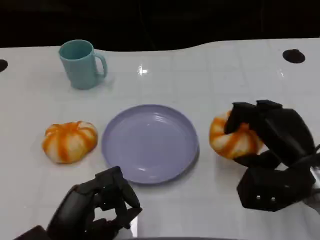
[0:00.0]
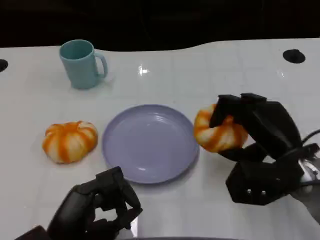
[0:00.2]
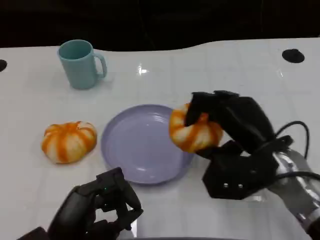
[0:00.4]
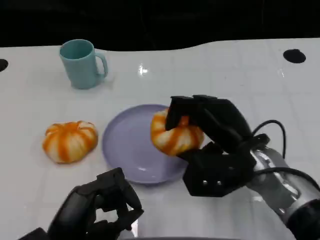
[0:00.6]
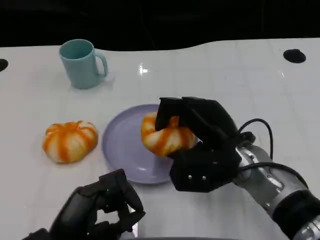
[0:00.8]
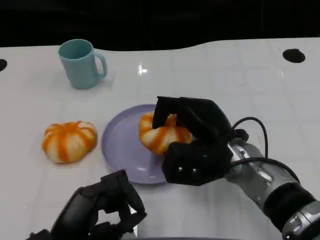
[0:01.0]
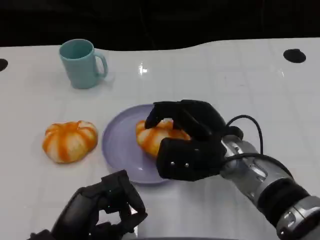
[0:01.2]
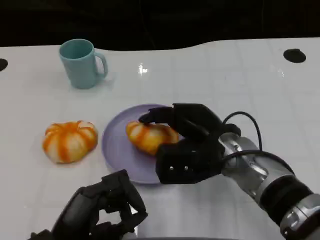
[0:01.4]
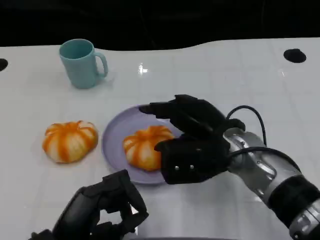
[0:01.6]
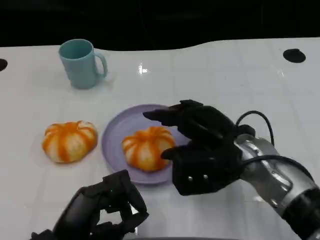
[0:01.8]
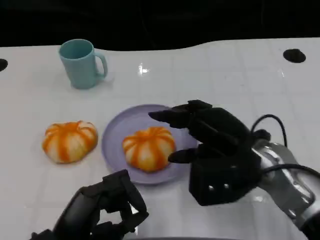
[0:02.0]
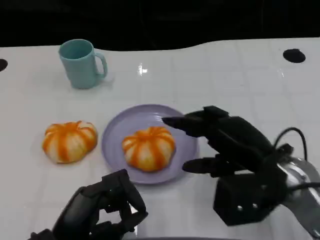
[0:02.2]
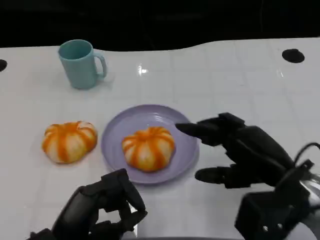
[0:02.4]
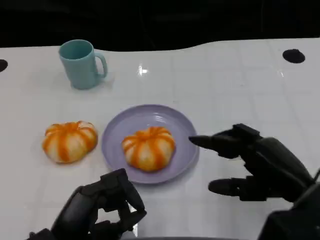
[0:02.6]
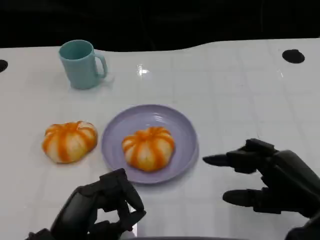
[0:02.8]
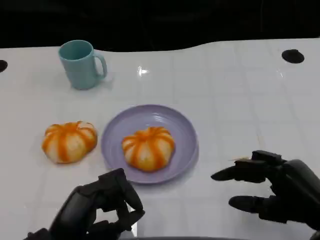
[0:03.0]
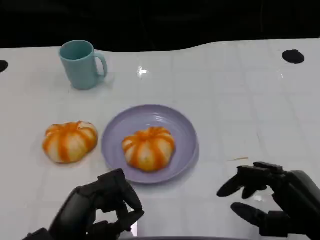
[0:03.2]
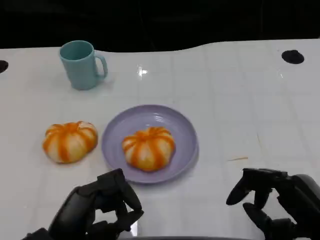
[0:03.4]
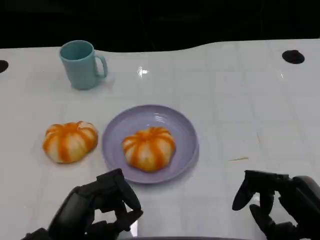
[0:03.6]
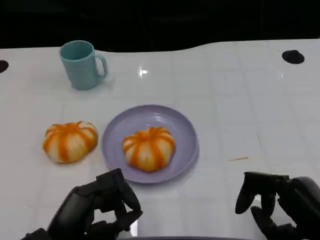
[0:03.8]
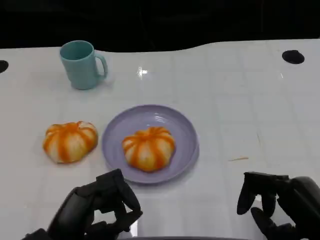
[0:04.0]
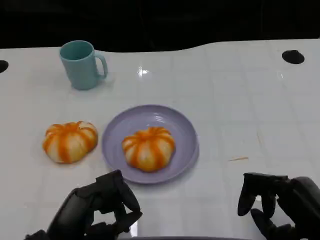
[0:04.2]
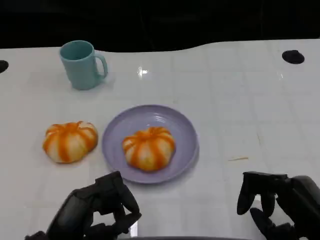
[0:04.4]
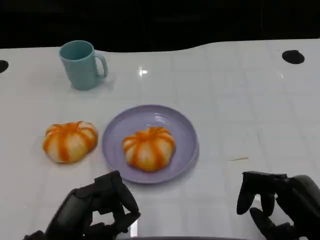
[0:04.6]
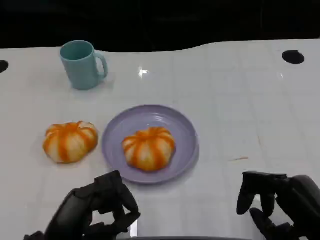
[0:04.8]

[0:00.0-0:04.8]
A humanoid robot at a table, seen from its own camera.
Task of the whole recording: Grasp the bread from the table and place it into the plate.
0:00.0 to 0:01.6: The right hand heads to the left, covering some 10 cm.
0:01.6 to 0:03.2: The right hand shifts about 20 cm backward and to the right.
0:03.2 to 0:04.8: The hands make only small movements.

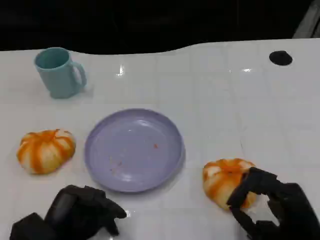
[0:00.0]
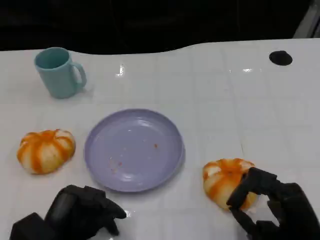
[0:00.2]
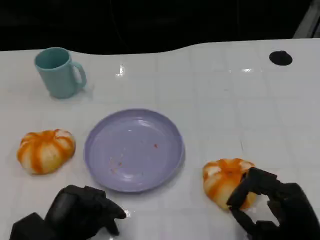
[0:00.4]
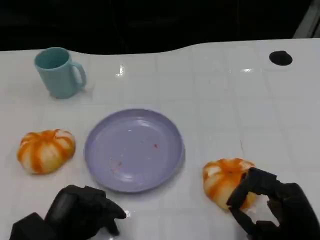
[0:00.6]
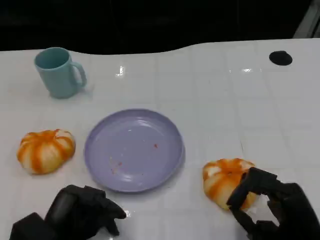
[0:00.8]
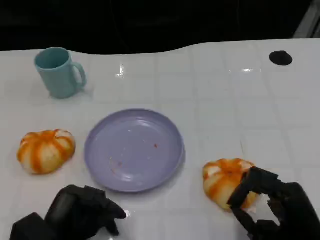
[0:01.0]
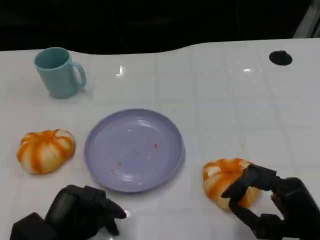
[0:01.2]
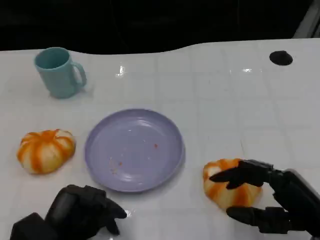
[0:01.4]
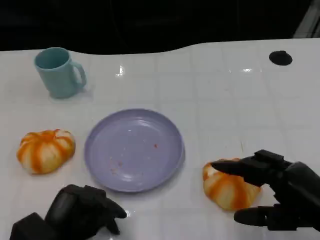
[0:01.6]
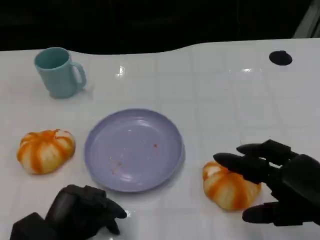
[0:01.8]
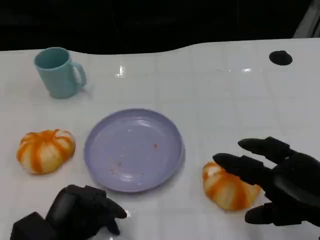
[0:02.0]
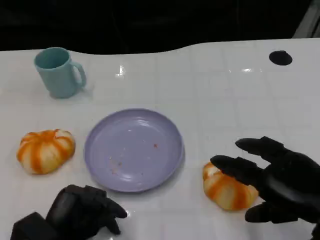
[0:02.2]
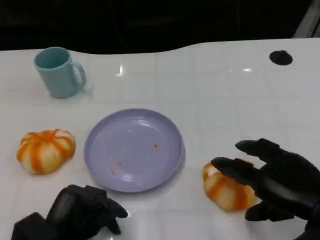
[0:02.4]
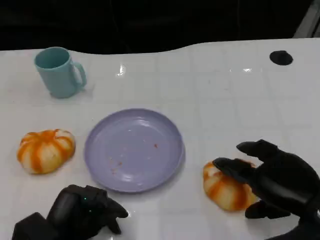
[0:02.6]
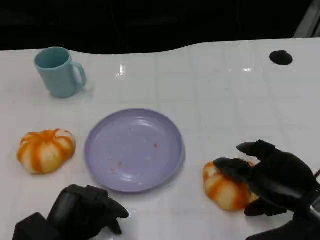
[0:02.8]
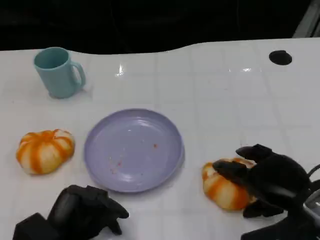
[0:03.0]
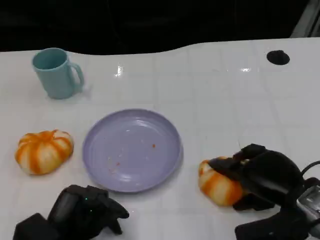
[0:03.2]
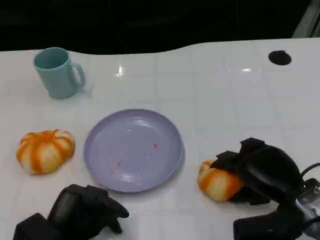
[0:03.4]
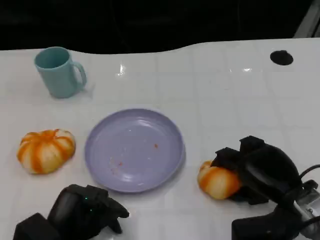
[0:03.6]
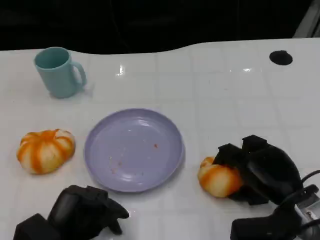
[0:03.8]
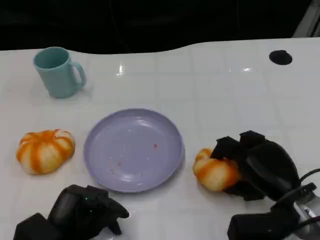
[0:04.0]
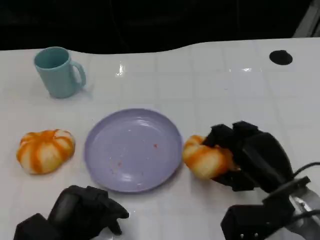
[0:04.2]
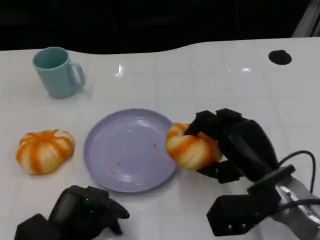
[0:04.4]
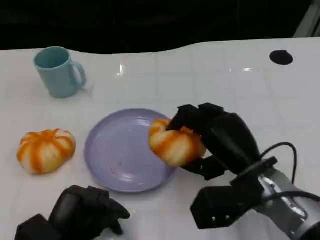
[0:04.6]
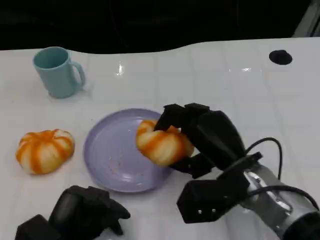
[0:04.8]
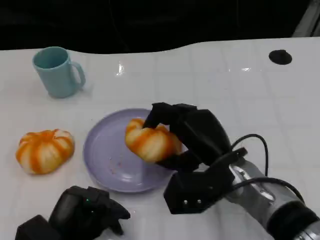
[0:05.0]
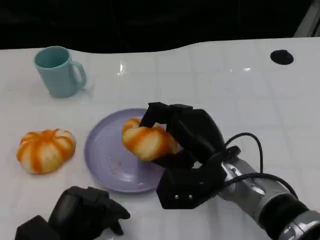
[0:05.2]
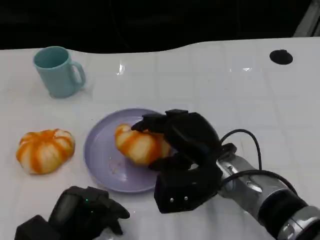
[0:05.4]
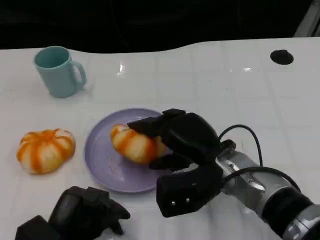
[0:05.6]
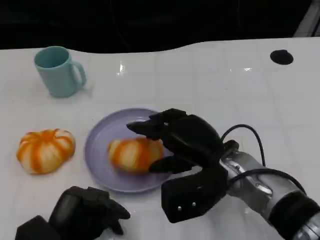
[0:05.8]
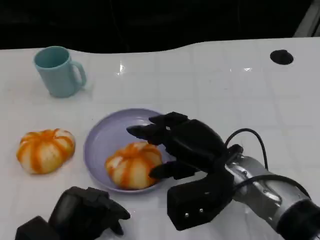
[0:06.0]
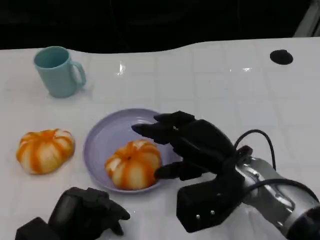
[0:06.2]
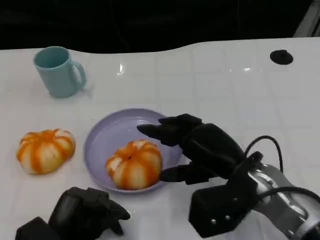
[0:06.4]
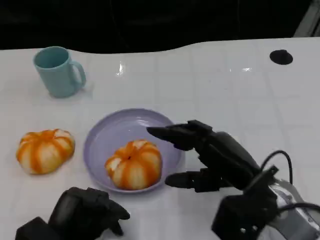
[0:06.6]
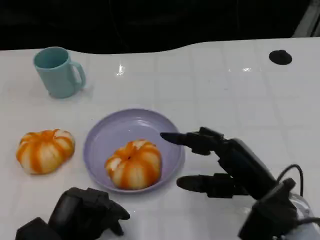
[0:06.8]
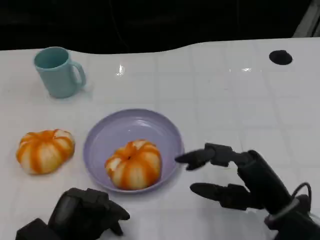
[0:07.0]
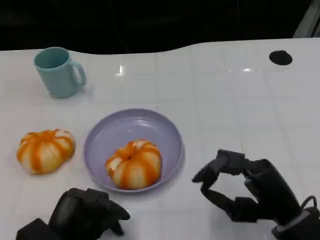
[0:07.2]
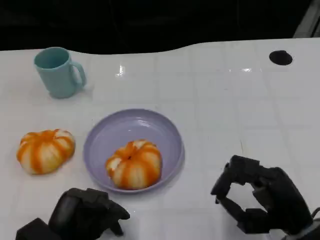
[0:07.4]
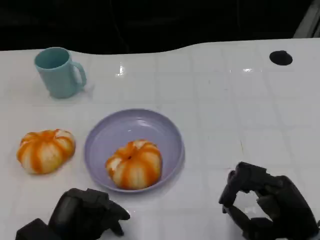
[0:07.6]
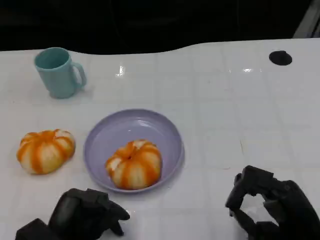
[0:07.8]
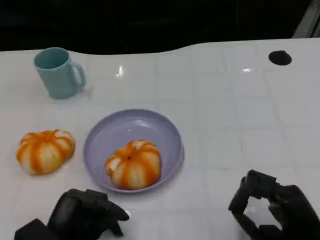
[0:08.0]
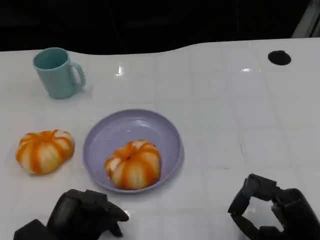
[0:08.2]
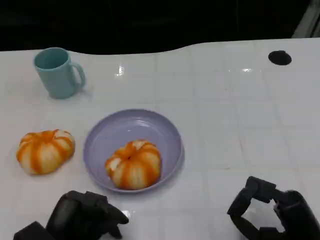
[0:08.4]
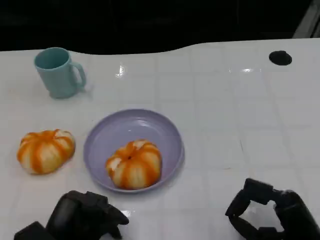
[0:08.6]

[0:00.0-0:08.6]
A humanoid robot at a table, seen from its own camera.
Task of the whole recording: Grasp the bread from the table and place it into the plate.
0:00.0 to 0:01.4: The right hand changes place by about 5 cm.
0:02.8 to 0:04.4: The right hand heads to the left, covering about 5 cm.
0:04.4 to 0:05.8: The right hand goes some 5 cm to the left.
0:05.8 to 0:07.2: The right hand moves to the right and backward, approximately 15 cm.
0:07.2 to 0:08.6: The right hand changes place by roughly 5 cm.

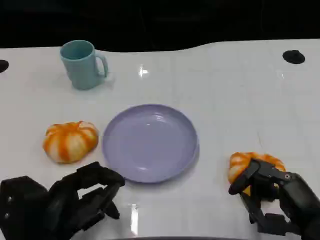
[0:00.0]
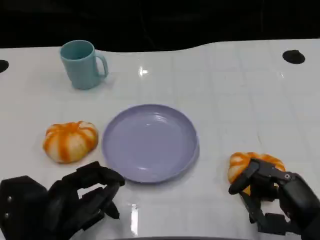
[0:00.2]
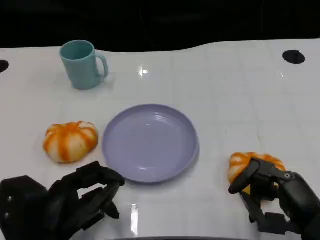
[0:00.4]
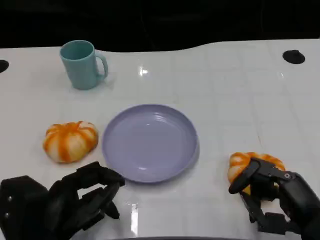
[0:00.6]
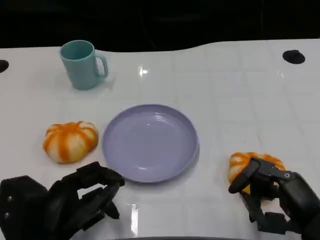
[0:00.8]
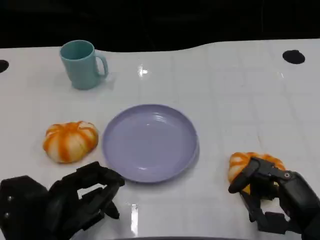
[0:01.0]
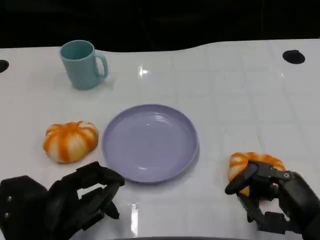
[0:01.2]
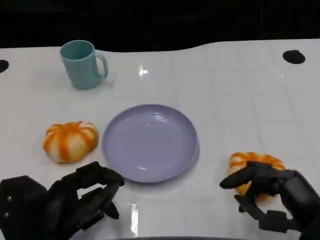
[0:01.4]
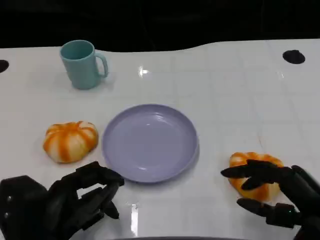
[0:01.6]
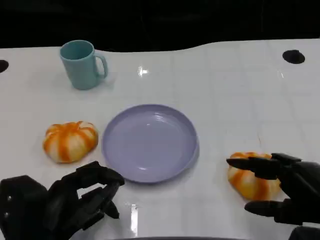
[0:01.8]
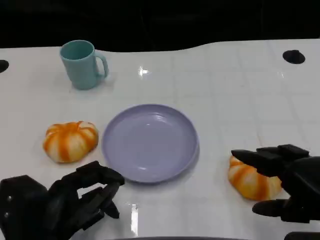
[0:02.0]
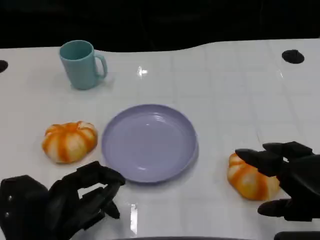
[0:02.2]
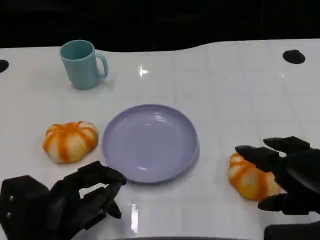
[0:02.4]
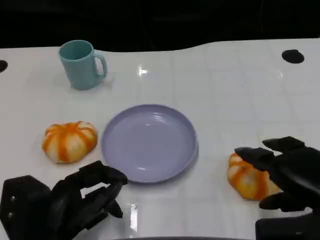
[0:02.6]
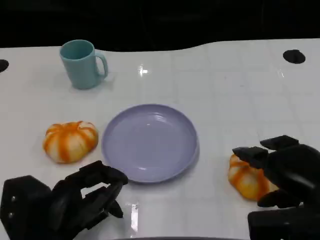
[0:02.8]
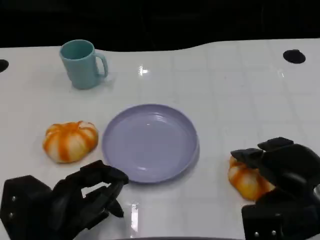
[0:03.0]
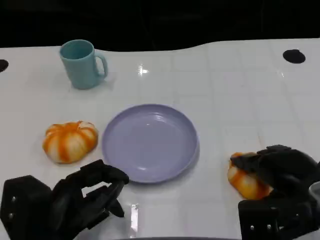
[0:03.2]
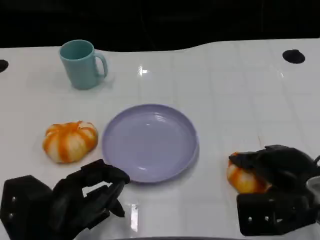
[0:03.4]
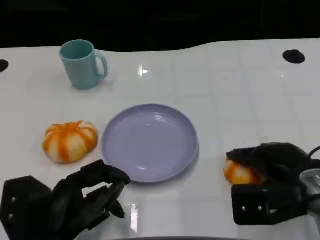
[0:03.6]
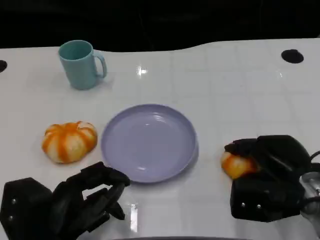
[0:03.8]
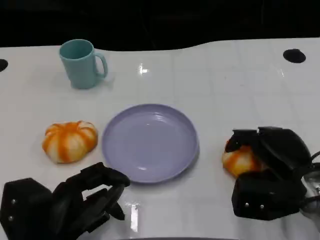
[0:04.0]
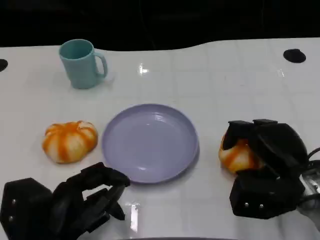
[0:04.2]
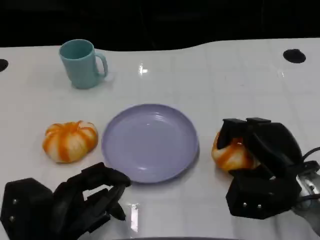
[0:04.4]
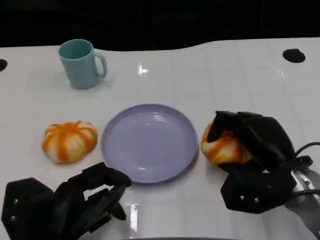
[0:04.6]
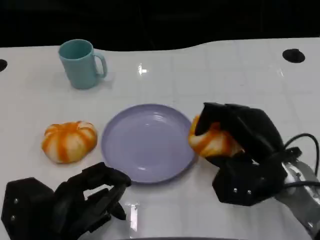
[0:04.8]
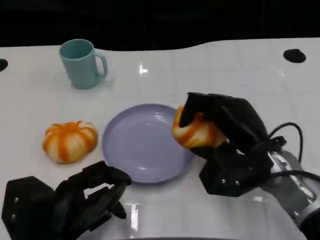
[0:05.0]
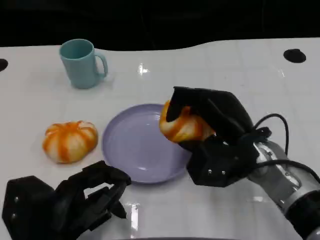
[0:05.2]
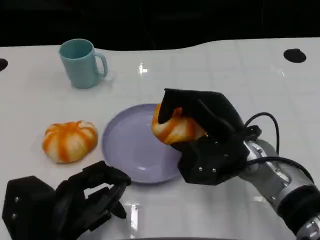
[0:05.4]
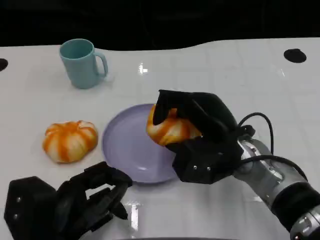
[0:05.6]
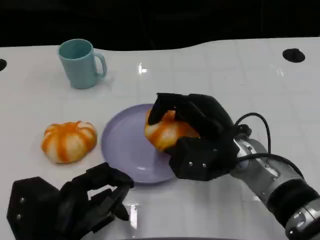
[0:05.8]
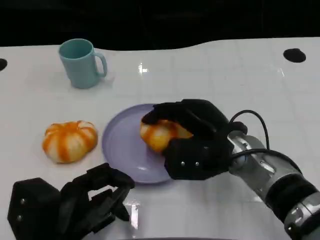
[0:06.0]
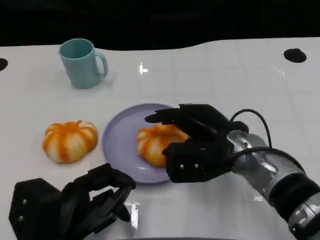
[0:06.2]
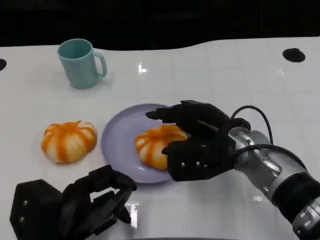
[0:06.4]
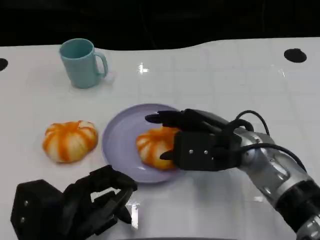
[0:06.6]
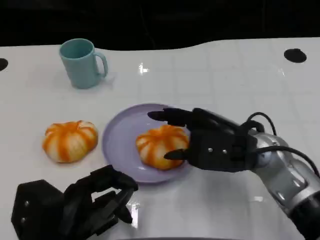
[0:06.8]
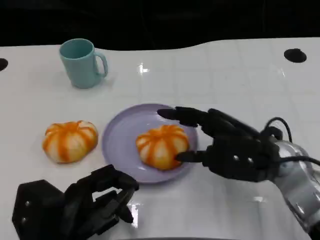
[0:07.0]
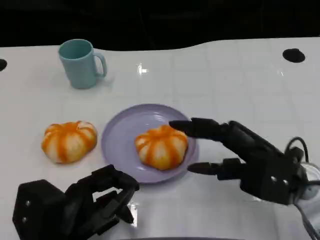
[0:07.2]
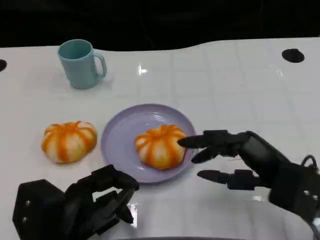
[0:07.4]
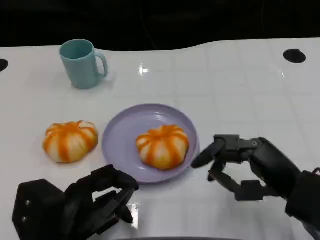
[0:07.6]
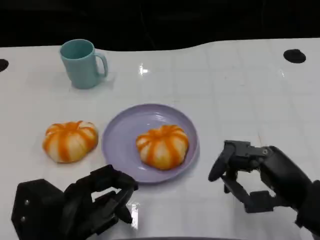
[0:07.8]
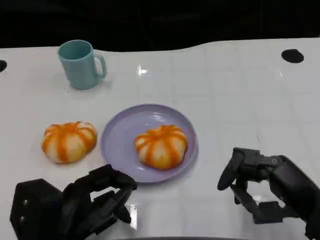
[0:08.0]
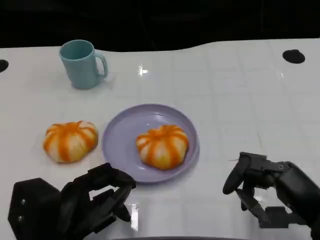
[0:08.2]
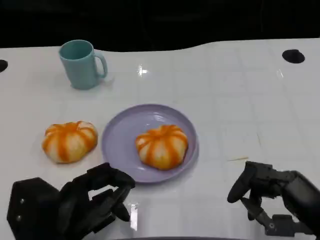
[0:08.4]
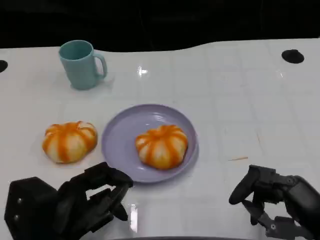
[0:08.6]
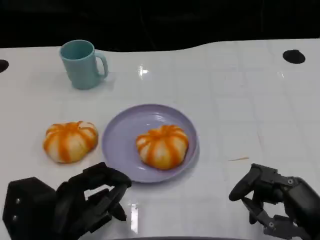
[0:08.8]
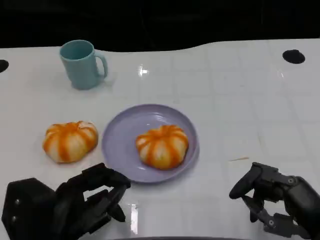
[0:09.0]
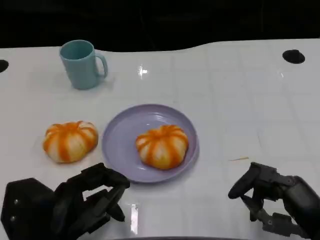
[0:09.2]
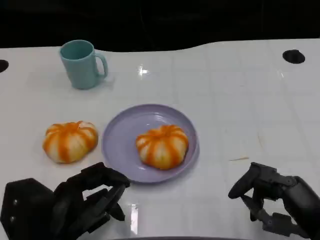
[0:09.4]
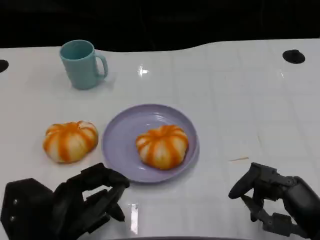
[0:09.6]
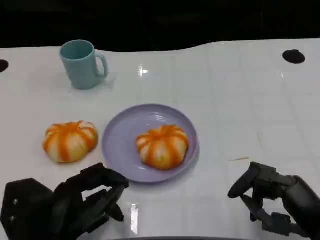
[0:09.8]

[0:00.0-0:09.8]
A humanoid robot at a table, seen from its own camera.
Task of the whole recording: Grasp the bread from the table and place it into the plate.
0:00.0 to 0:01.4: There are only small adjustments of the hands.
0:01.4 to 0:02.8: The right hand ends up about 5 cm from where it was.
0:02.8 to 0:04.2: The right hand moves some 5 cm.
0:04.2 to 0:05.6: The right hand travels to the left by approximately 10 cm.
0:05.6 to 0:07.0: The right hand travels to the right by approximately 5 cm.
0:07.0 to 0:08.4: The right hand shifts about 15 cm backward and to the right.
0:08.4 to 0:09.8: The hands make only small movements.
